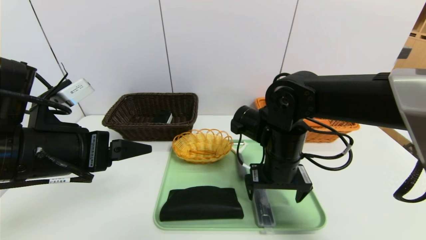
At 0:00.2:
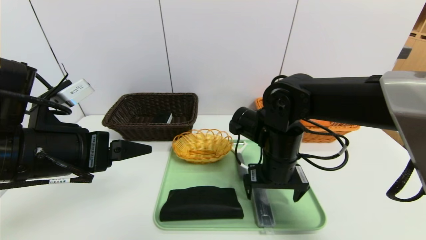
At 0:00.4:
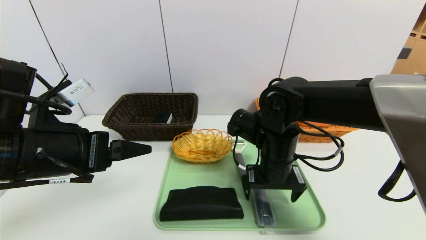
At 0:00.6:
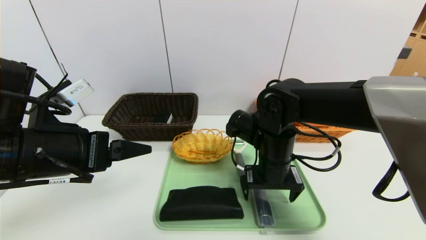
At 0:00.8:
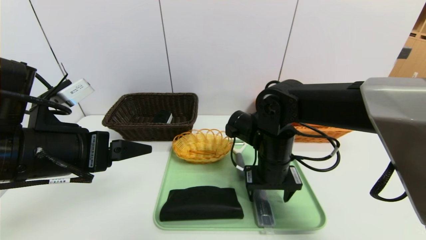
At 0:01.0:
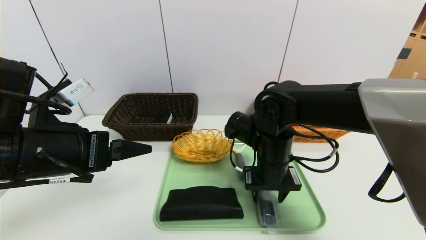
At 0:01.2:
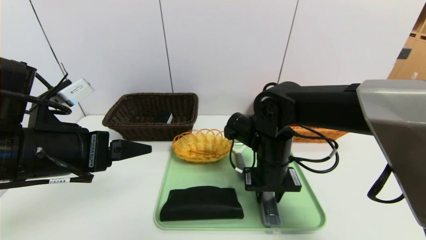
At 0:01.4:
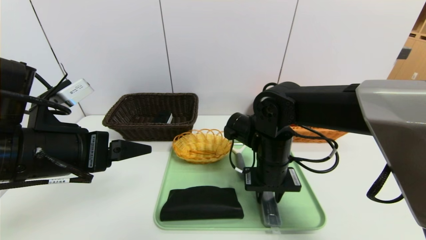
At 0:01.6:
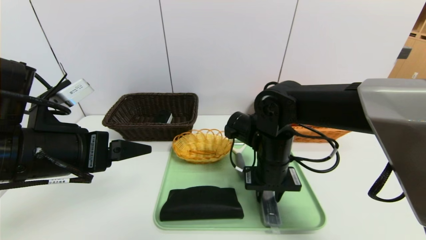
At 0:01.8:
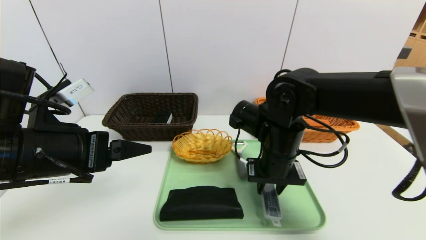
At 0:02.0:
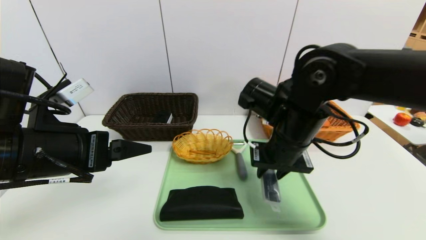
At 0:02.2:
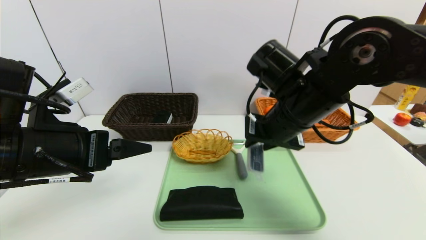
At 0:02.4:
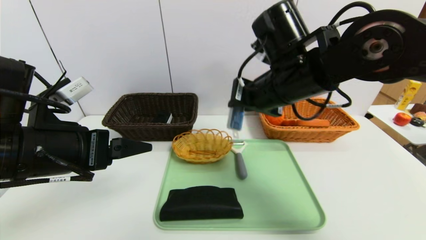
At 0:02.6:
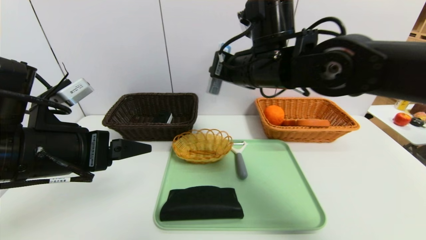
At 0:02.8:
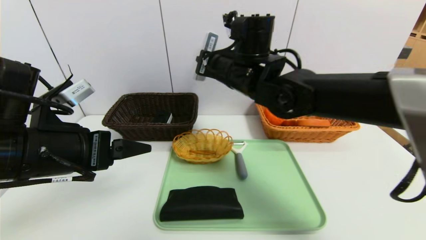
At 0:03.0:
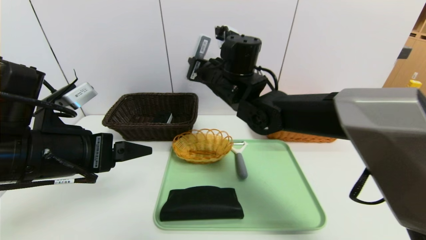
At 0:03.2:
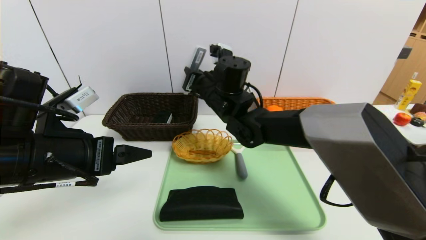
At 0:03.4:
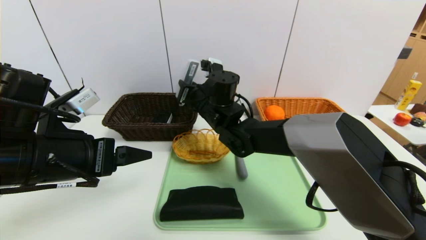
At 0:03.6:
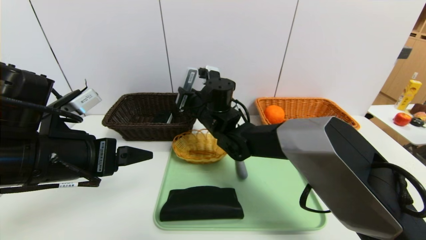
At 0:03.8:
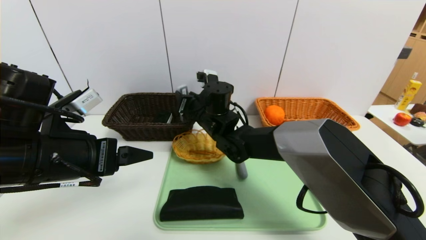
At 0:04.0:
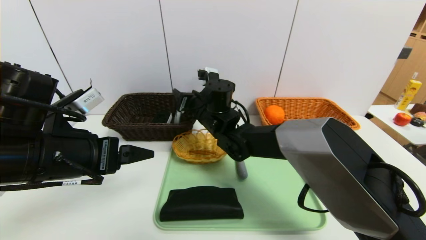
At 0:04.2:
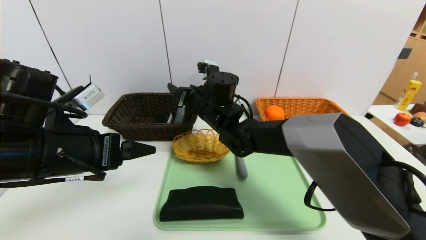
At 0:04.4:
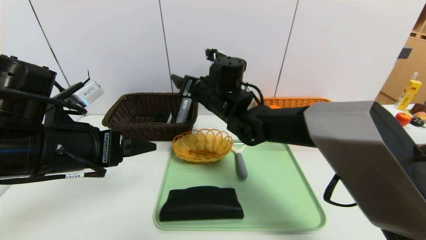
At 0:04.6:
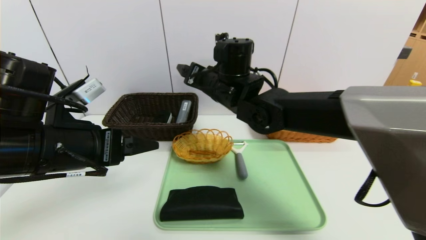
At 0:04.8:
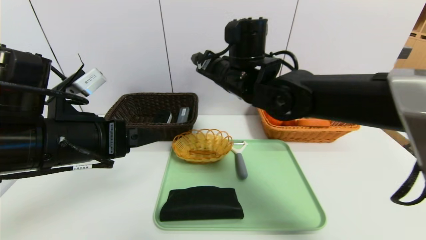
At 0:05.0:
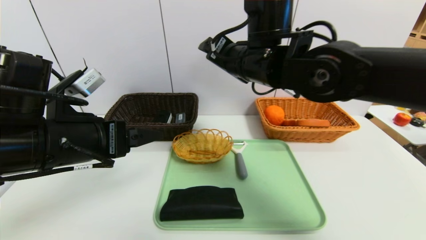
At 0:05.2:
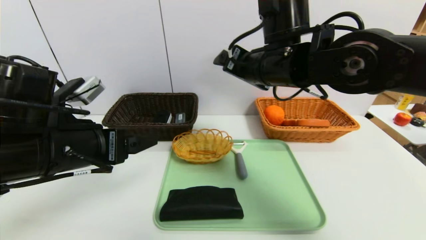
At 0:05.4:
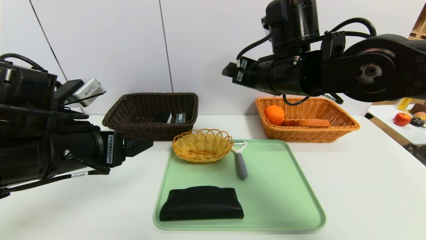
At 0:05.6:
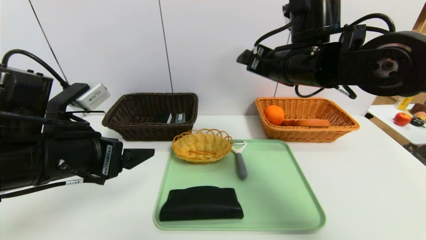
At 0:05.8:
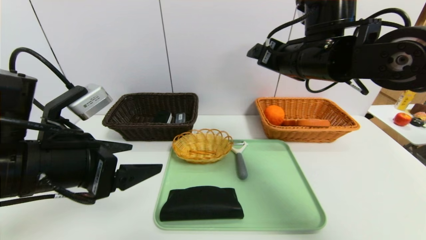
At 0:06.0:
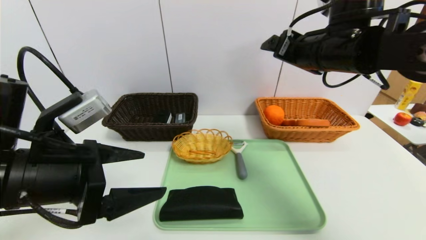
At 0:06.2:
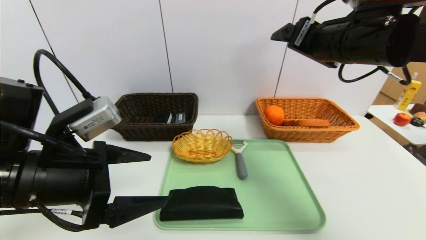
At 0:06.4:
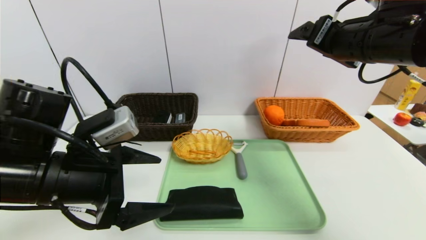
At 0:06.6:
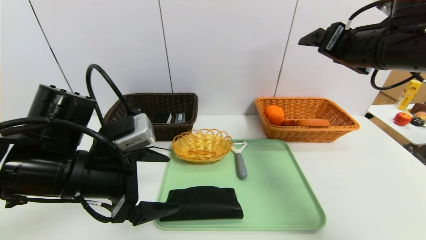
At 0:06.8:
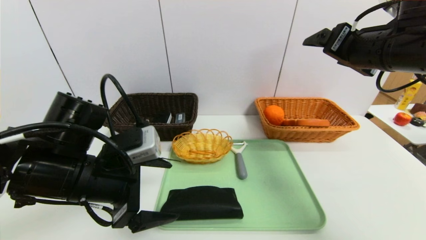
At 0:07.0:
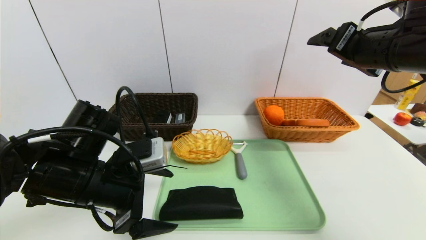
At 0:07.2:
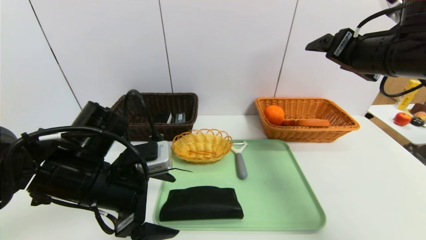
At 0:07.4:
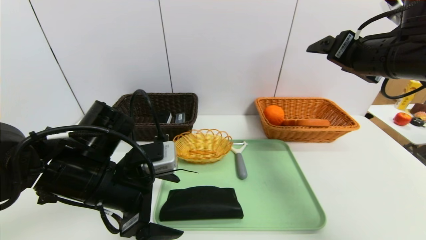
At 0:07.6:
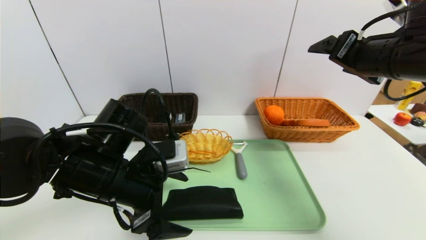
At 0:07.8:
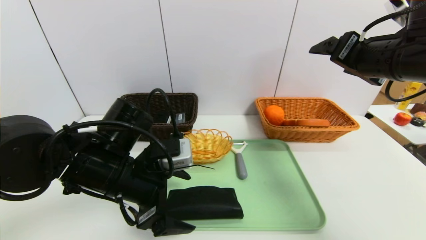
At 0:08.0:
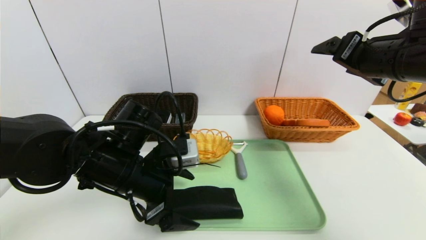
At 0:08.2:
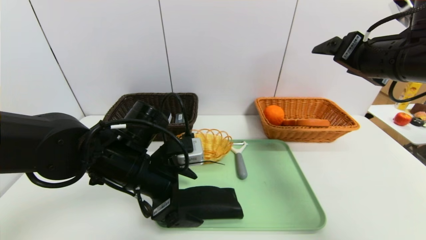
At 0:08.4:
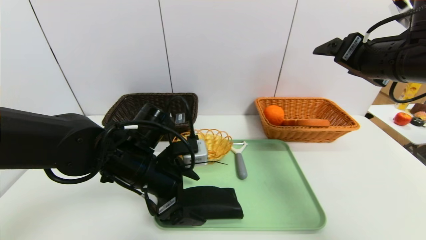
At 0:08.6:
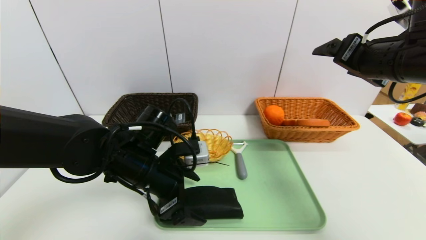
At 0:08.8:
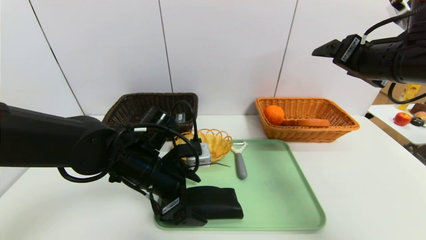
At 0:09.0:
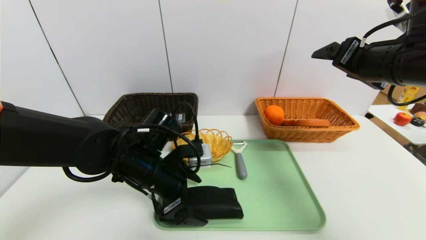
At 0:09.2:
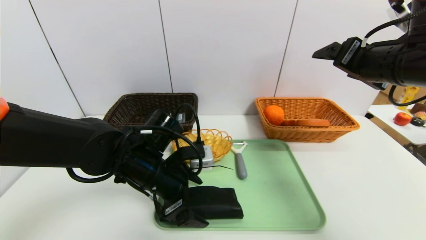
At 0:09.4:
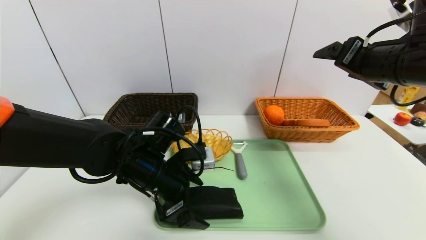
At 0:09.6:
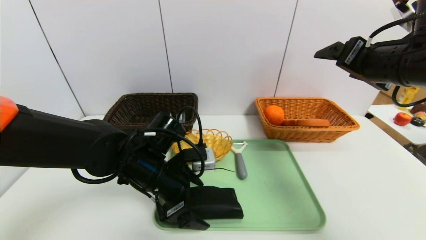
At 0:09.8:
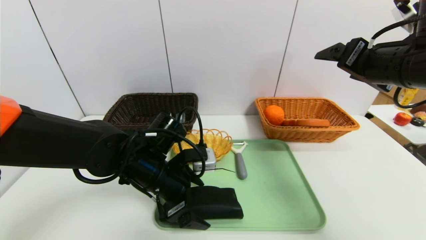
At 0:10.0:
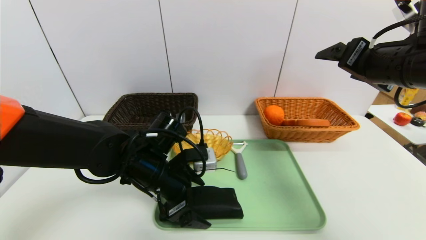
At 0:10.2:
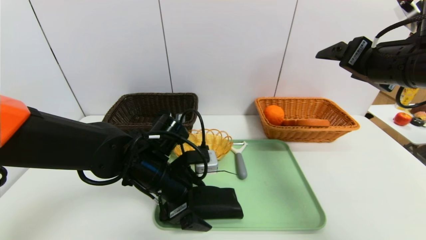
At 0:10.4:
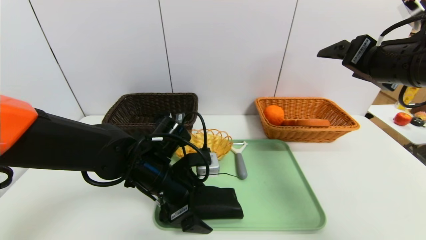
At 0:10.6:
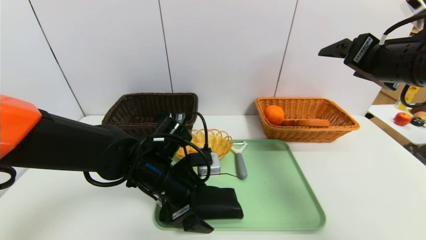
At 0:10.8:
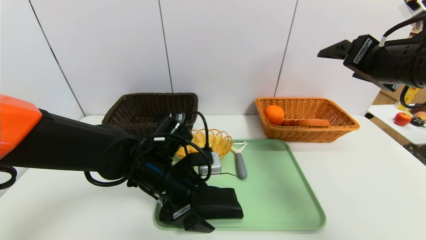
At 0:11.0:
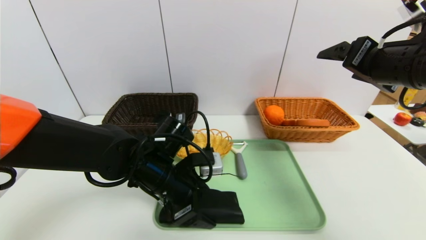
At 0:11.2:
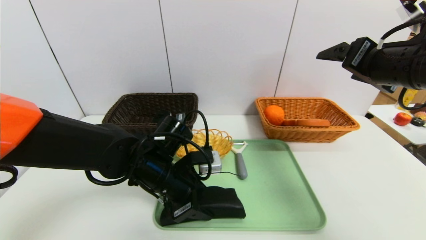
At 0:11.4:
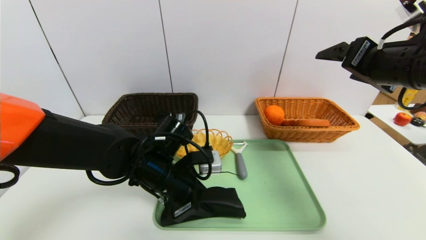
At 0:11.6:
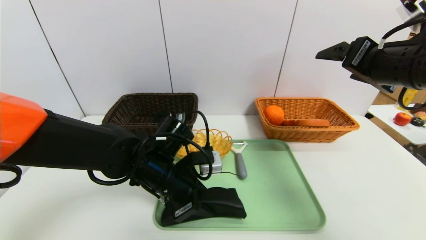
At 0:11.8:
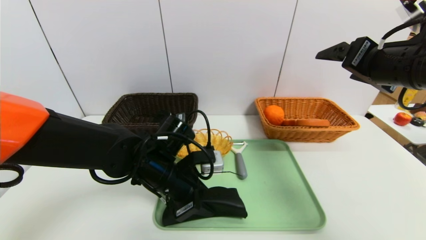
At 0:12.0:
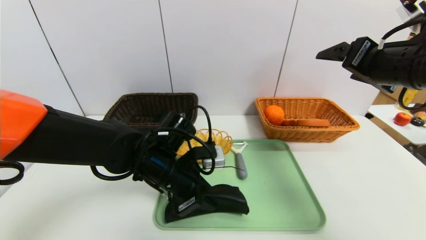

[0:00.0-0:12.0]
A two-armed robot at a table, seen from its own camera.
Task of the whole recording: place the food in the right basket with the right gripper, and place the non food items in the left basket with the left gripper.
0:00.0 to 0:01.6: The right gripper closes up.
0:01.6 to 0:03.0: The right gripper goes some 15 cm upward, forward and to the left.
0:03.0 to 0:04.4: The right gripper opens its fingers.
0:04.4 to 0:06.0: The right gripper goes roughly 20 cm to the right, upward and backward.
0:06.0 to 0:07.6: The left gripper goes roughly 10 cm downward, to the right and forward; the right gripper goes some 10 cm to the right.
0:07.6 to 0:09.0: The left gripper ends up approximately 5 cm from where it was.
0:09.0 to 0:10.4: The grippers move only a little.
0:10.4 to 0:12.0: The left gripper closes.

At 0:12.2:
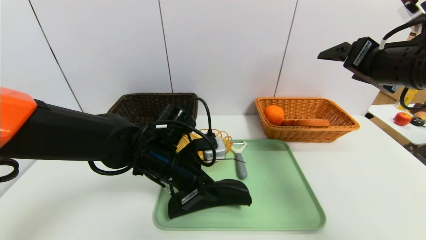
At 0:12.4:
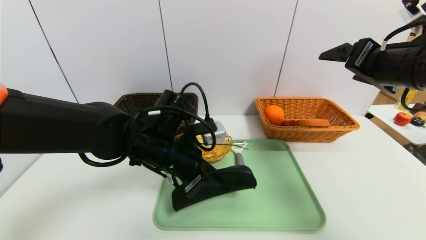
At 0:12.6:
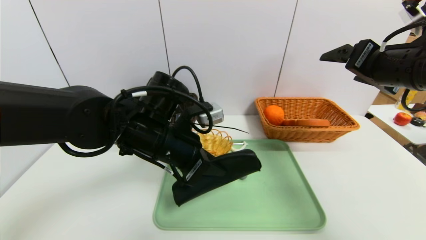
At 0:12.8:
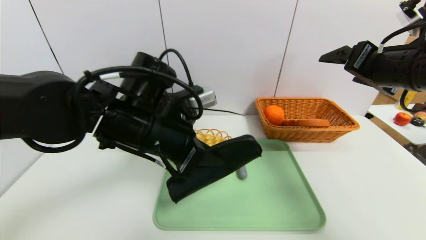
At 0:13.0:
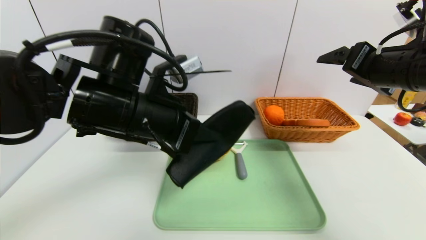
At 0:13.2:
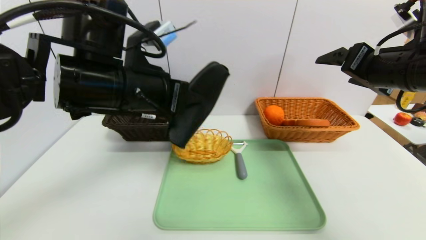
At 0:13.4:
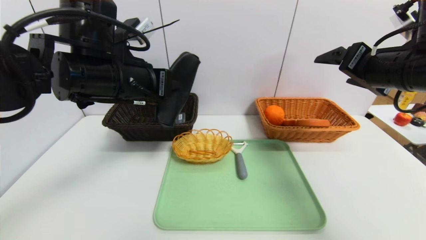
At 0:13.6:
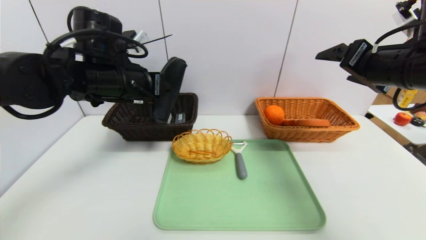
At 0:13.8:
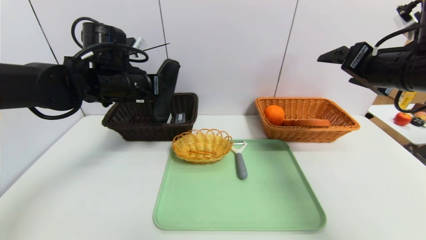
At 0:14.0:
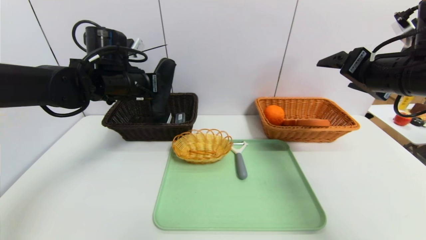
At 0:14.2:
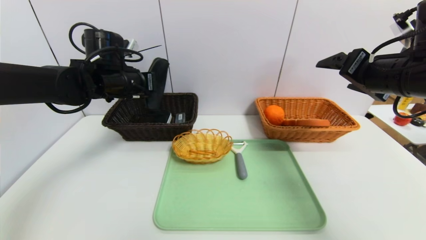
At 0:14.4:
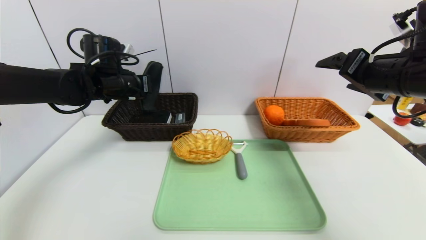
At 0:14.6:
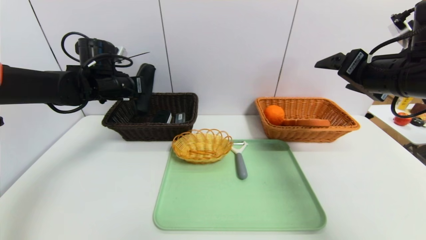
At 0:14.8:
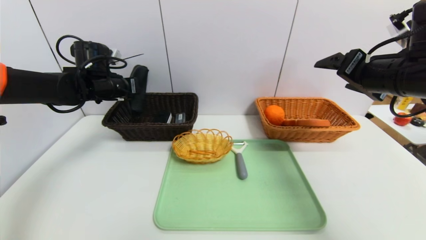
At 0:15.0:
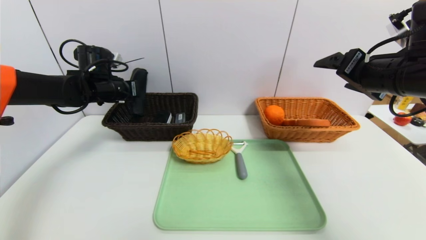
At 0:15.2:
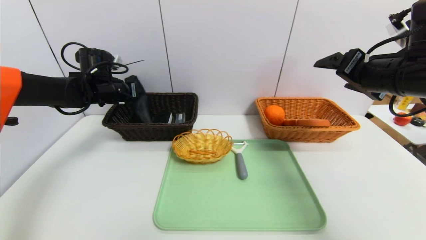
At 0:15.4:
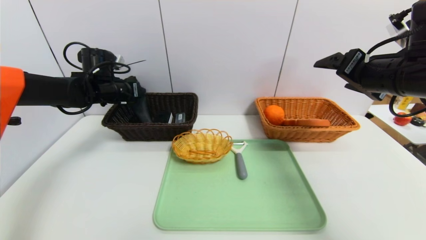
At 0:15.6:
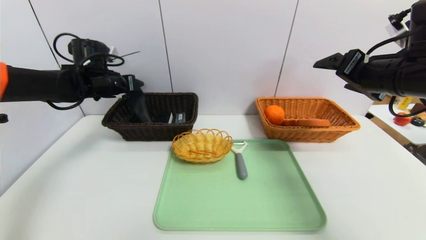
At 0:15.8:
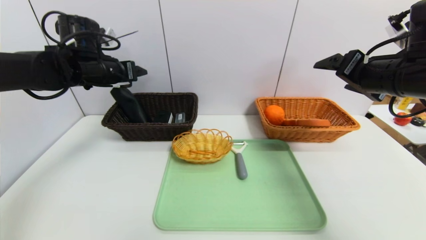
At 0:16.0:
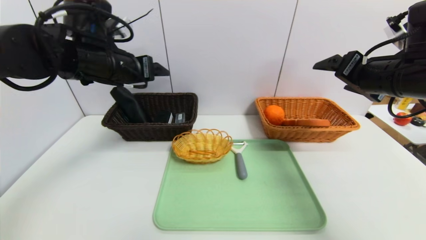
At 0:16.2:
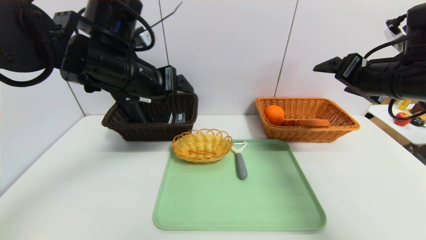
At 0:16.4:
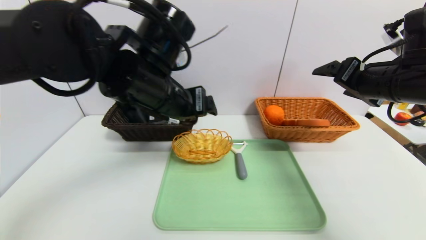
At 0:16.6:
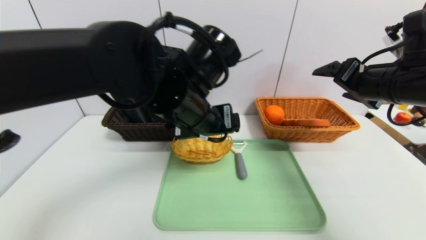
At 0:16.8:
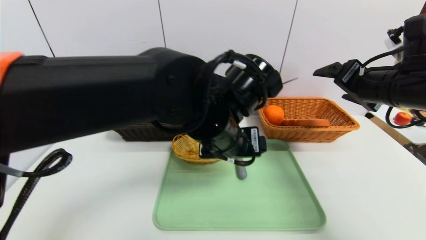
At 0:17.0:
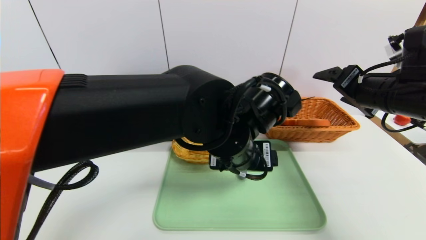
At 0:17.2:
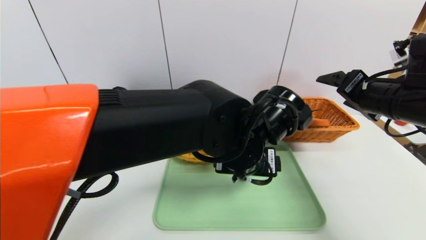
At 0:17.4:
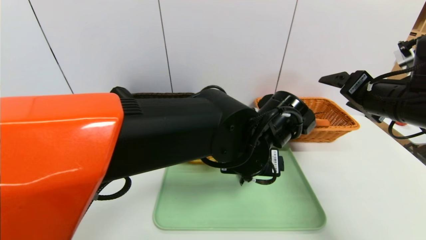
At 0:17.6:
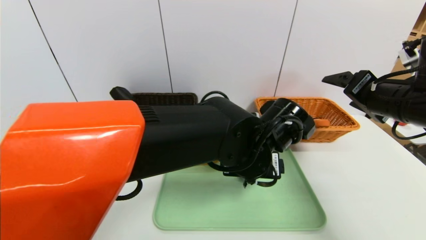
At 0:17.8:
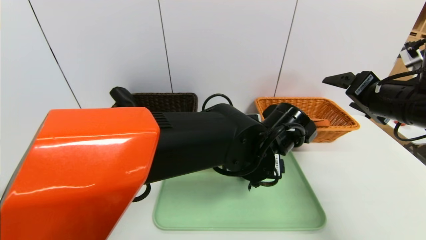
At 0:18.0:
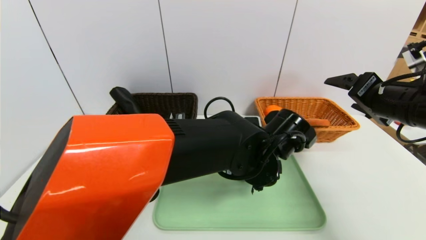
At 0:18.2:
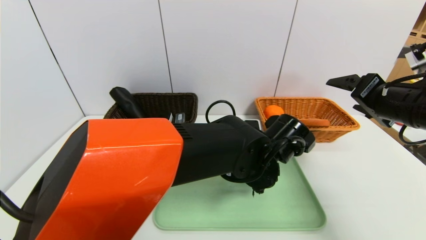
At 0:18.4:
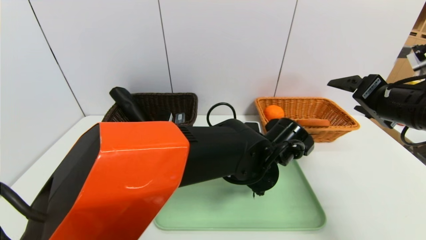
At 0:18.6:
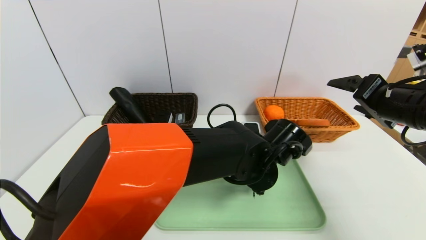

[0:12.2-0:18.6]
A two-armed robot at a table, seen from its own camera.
Task of the whole recording: place the food in the right basket with the right gripper, and place the non food items in the left basket with the left gripper.
Step, 0:12.2 to 0:16.2: Grasp the glasses case and put it in the left basket.
0:12.2 to 0:13.8: The left gripper travels upward, to the left and forward by about 15 cm.
0:13.8 to 0:15.4: The left gripper heads forward and to the left, covering some 10 cm, and opens its fingers.
0:15.4 to 0:17.0: The left gripper is displaced to the right and backward by some 35 cm, and opens its fingers.
0:17.0 to 0:18.6: The left gripper is displaced downward by about 10 cm.
